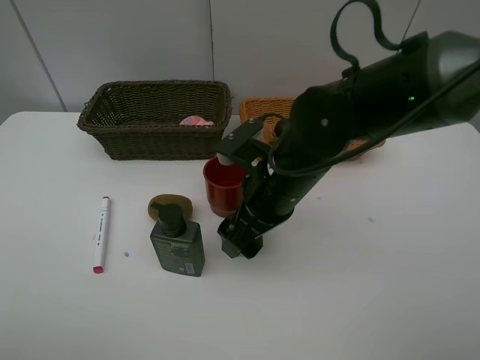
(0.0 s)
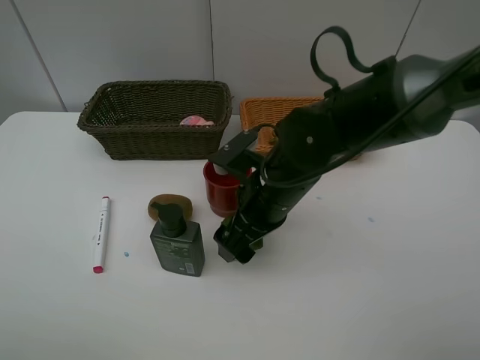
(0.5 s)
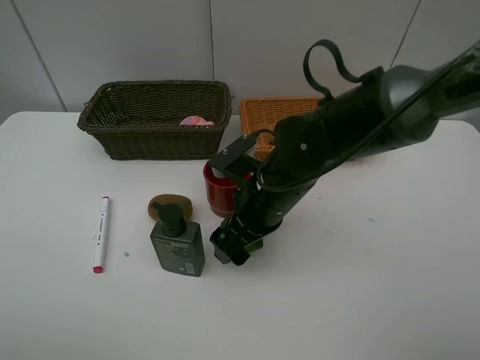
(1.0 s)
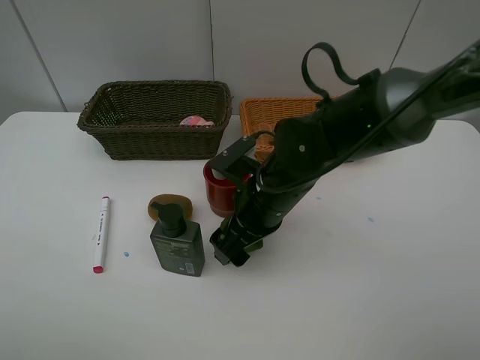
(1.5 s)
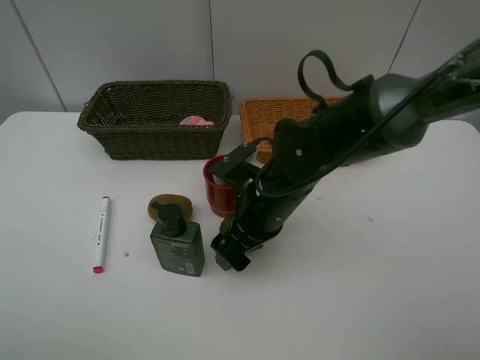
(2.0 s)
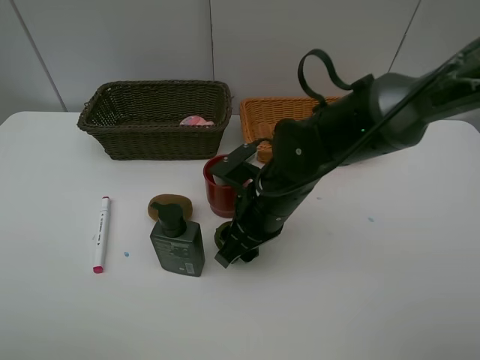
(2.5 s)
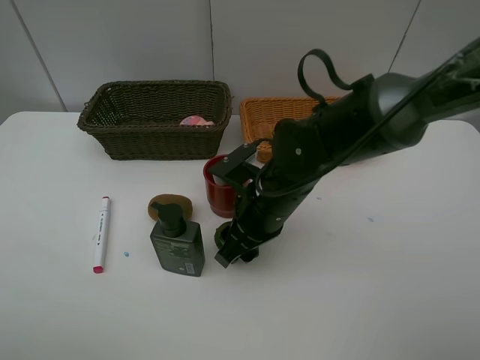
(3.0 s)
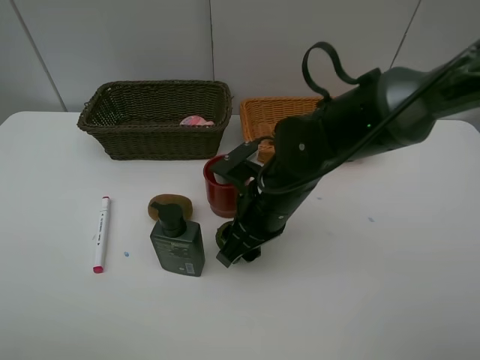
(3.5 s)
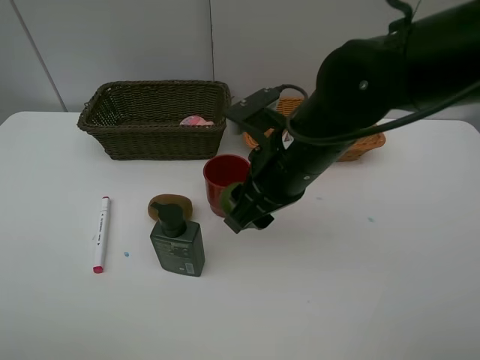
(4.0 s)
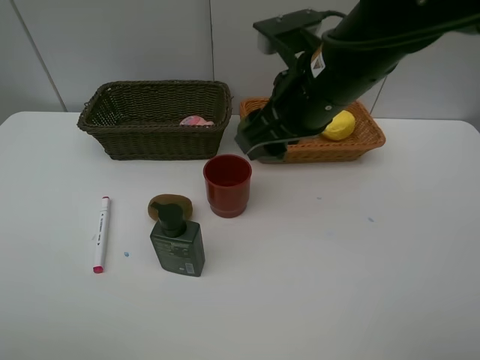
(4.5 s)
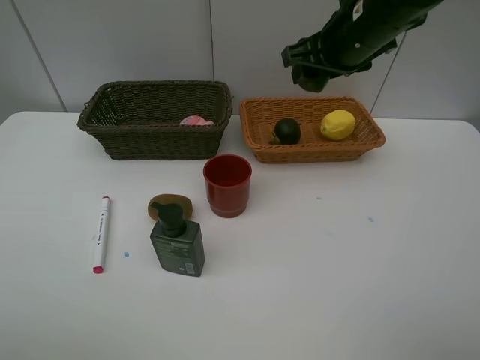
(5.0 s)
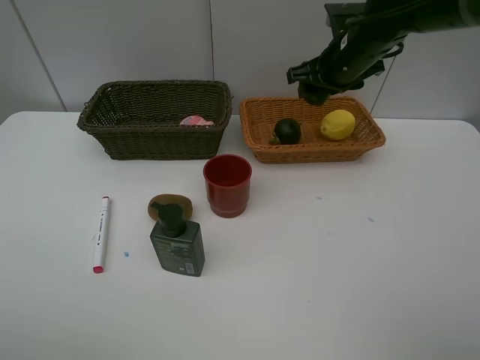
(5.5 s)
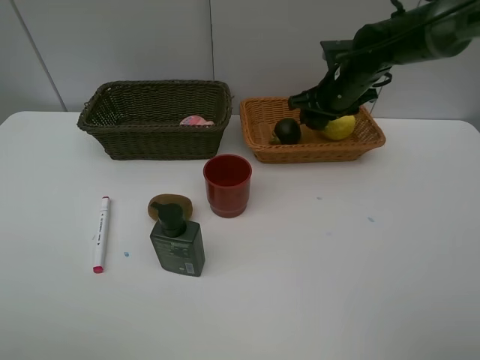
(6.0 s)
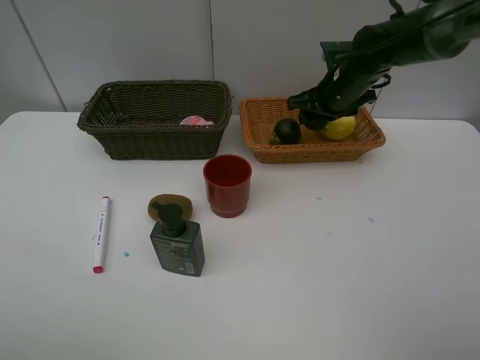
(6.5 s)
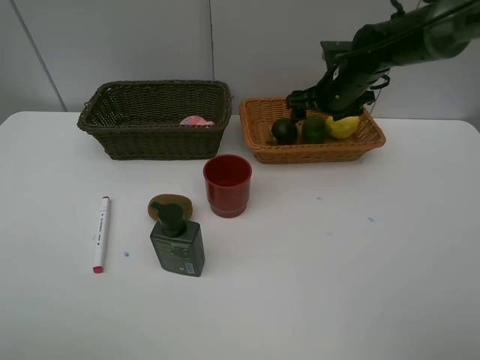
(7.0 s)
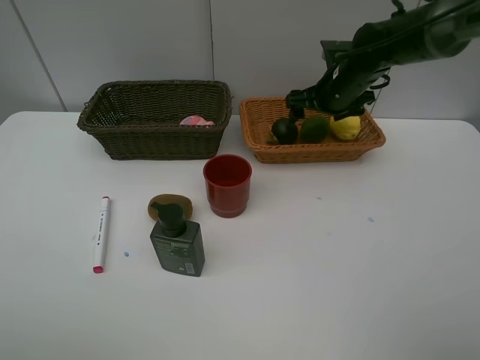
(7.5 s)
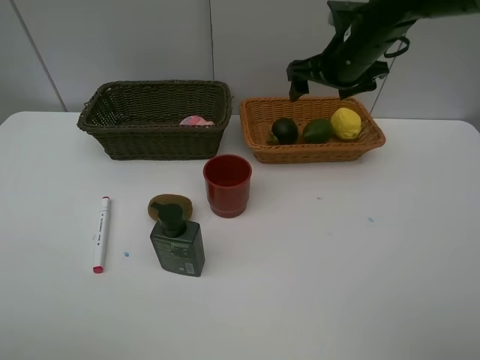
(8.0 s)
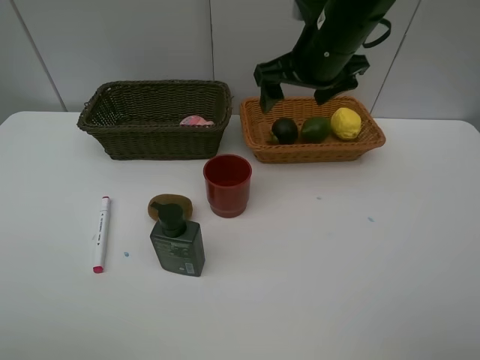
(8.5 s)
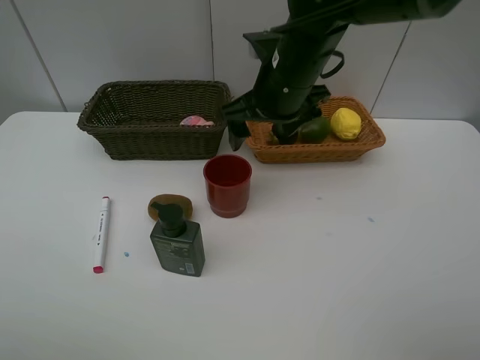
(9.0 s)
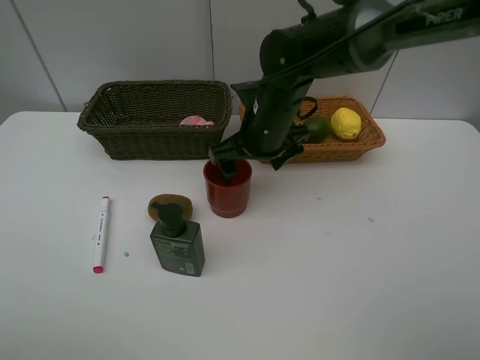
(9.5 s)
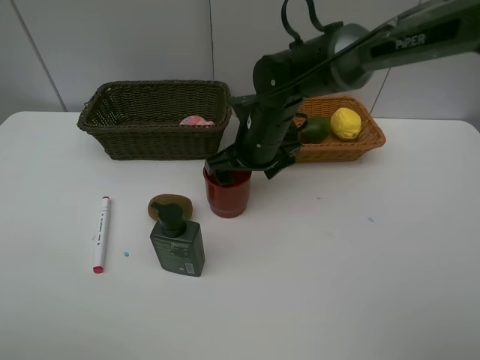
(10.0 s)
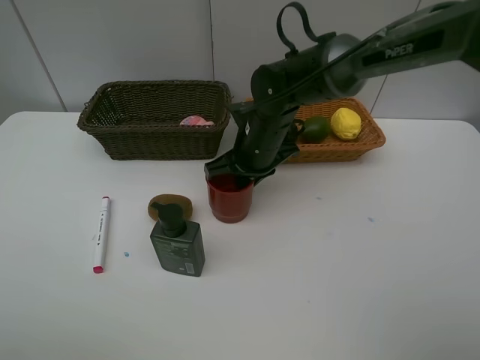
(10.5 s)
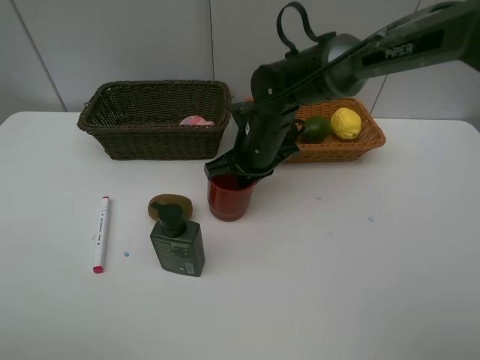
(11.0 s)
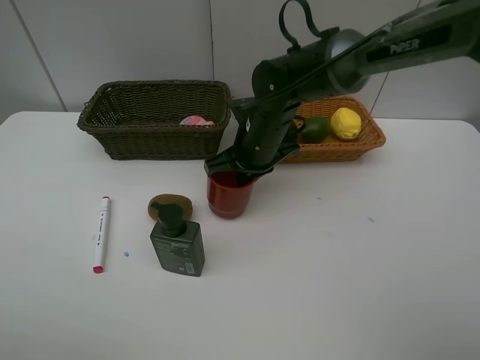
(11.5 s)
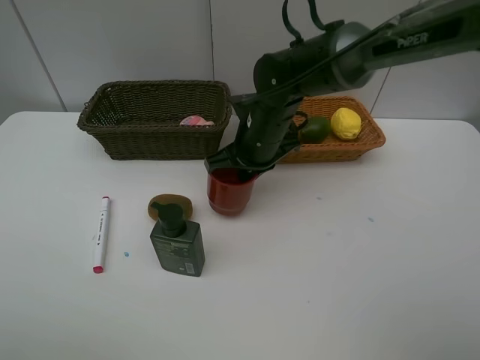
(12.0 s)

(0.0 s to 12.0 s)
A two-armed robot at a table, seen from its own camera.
Task of the whole recording: Place multiple objects separately in different baskets.
Step, 0.0 s - 3.5 s: Pick up the lime with right gripper.
Step, 4.0 s - 7.5 s: Place the lime in the light basket with right gripper.
0.0 s - 2.0 s: The grippers stay close to where they were, moving slightly.
2.0 s - 4.0 s: The right gripper shifts about 10 cm upward, and closes.
4.0 s - 6.0 s: The right gripper is displaced forward and to the right by some 25 cm.
6.0 s - 8.0 s: The right gripper moves upward, approximately 5 cm, and opens.
8.0 s - 10.0 s: The right gripper travels to the left, downward and backward by some 15 cm.
10.0 s - 12.0 s: The right gripper closes its fingers.

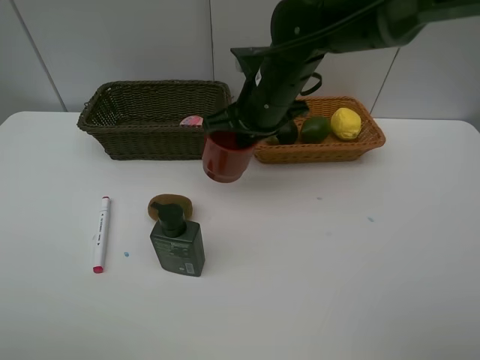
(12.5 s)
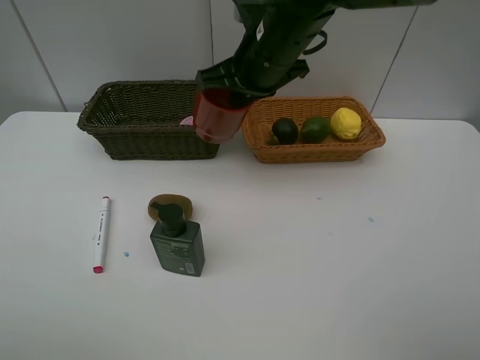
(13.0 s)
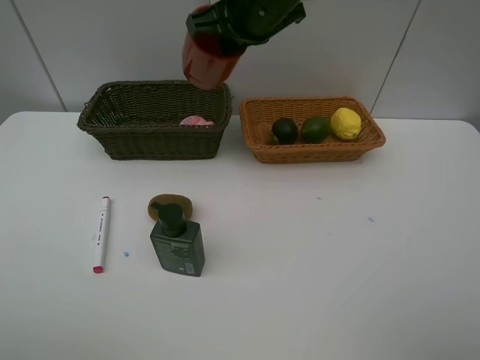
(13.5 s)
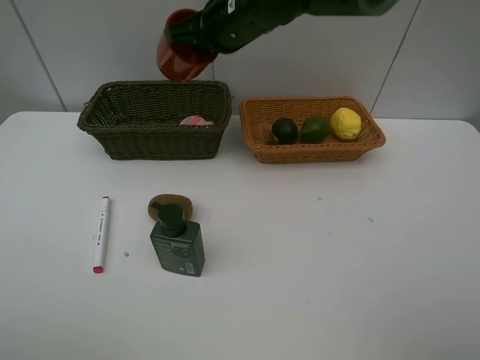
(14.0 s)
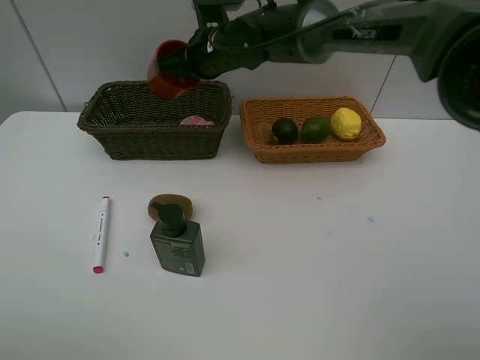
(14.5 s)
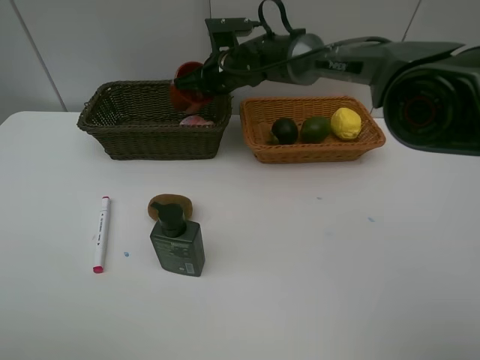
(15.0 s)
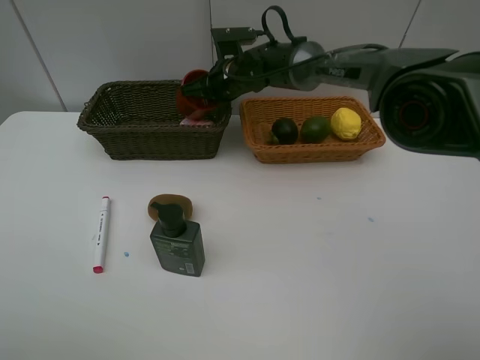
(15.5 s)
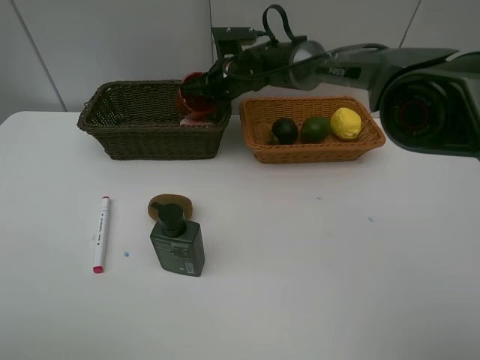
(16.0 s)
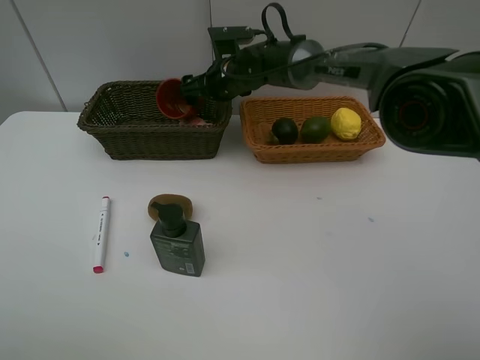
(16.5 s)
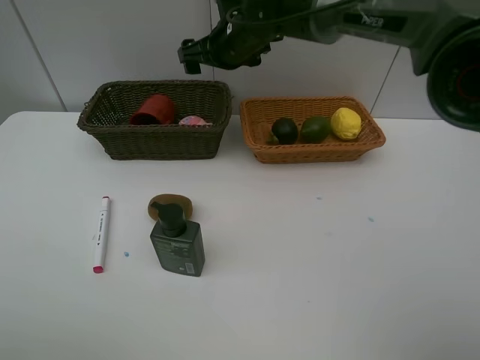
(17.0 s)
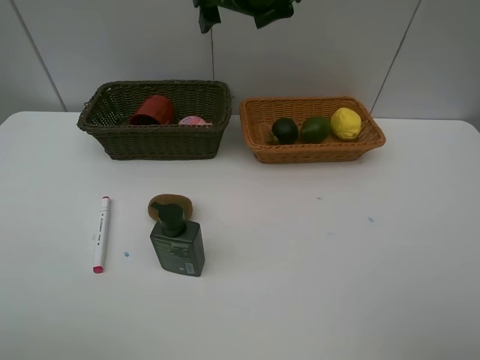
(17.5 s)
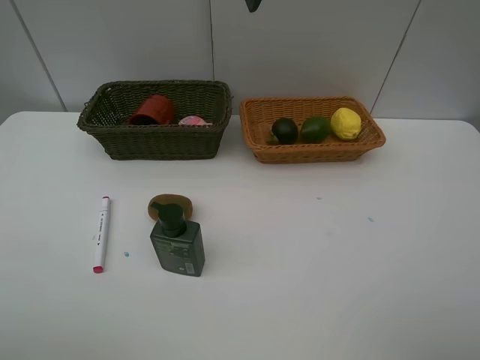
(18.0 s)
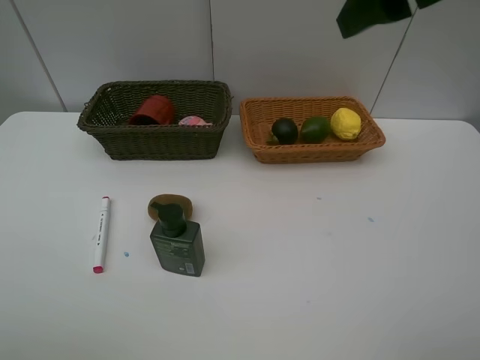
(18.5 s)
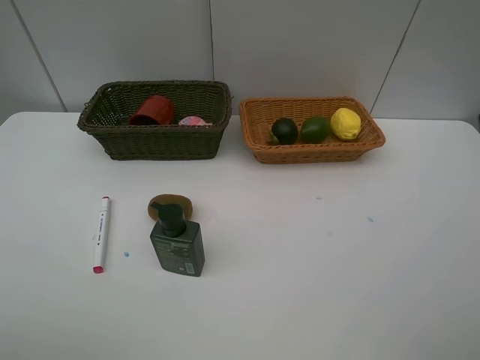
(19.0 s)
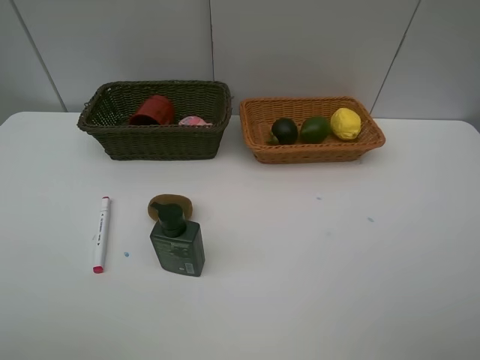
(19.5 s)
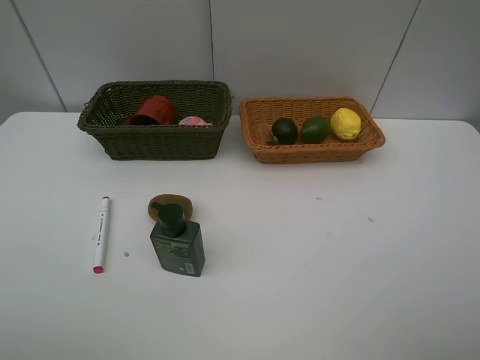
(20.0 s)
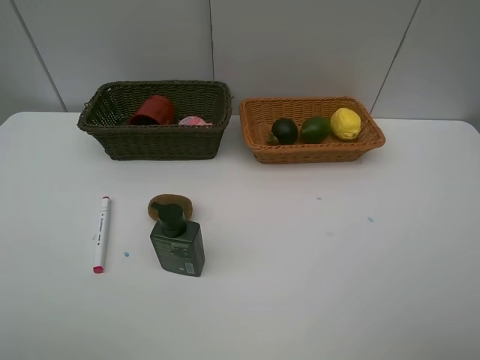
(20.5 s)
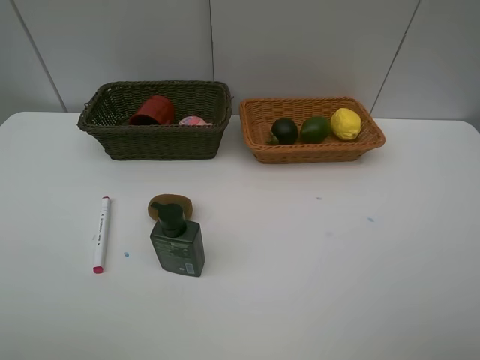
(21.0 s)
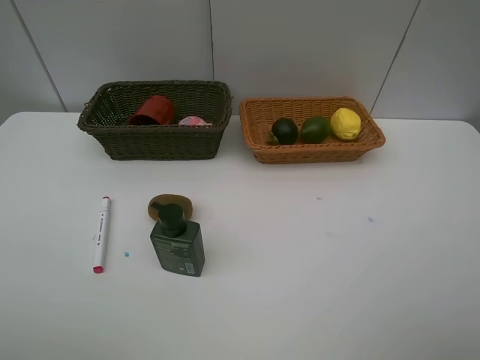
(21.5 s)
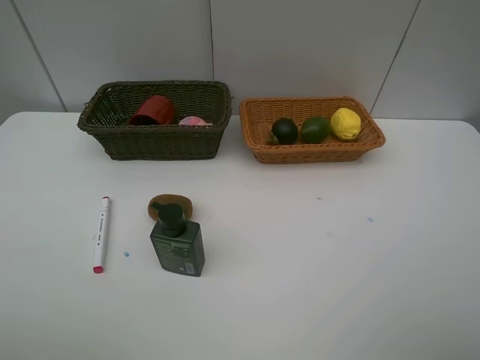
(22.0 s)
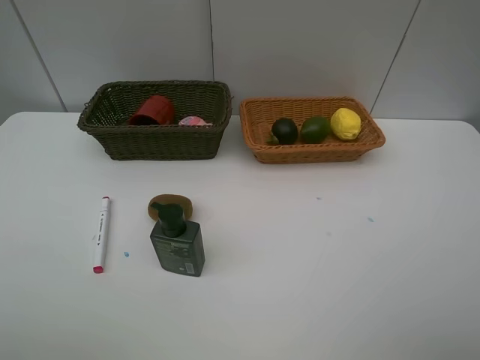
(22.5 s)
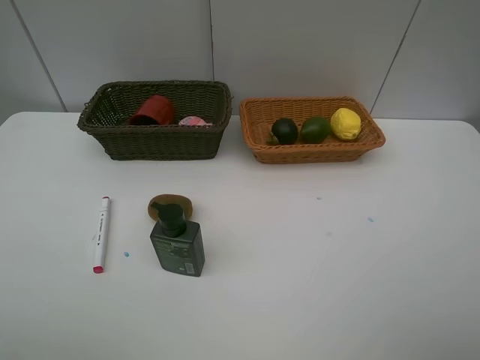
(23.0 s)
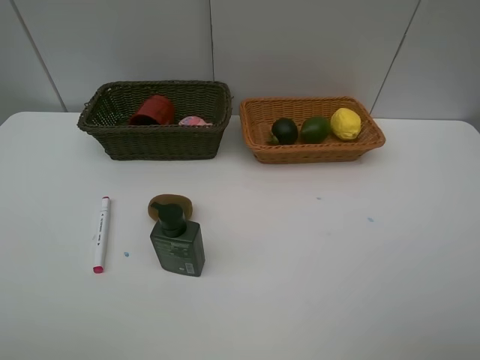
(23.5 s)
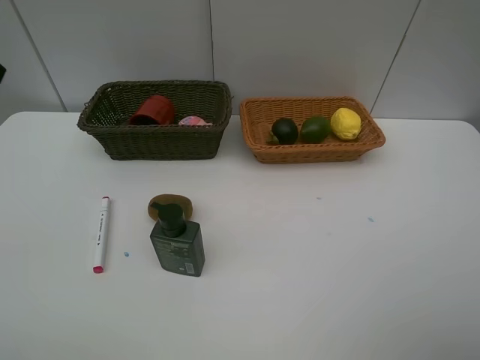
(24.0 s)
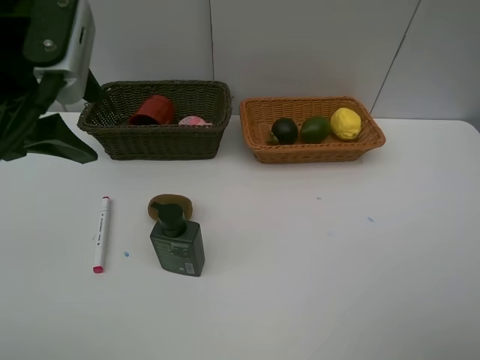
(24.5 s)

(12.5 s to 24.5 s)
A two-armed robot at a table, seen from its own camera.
Task of the whole recording: Place multiple objects separately in different baskets.
Step, 12.5 s - 16.5 s: Place the dark brown cup in the dark basket with right gripper.
12.5 s - 14.5 s: The right gripper goes some 10 cm forward and to the left, and reaches roughly 10 cm upward, then returns.
14.5 s - 16.5 s: The right gripper travels downward by roughly 5 cm, and opens its fingers.
16.5 s - 18.5 s: The right gripper shifts approximately 40 cm backward, upward and to the right.
18.5 s - 20.5 s: The right gripper heads backward, to the right and downward, covering roughly 30 cm.
22.5 s - 24.5 s: The left gripper is displaced forward and to the right by some 25 cm.

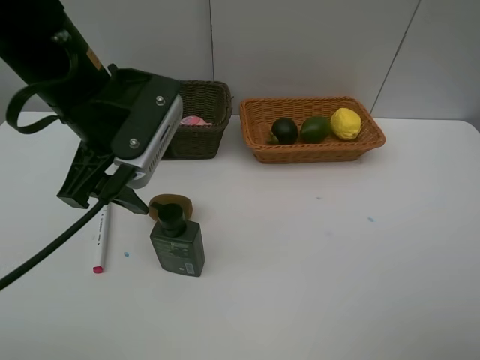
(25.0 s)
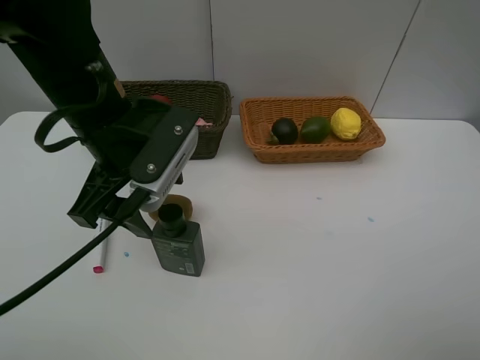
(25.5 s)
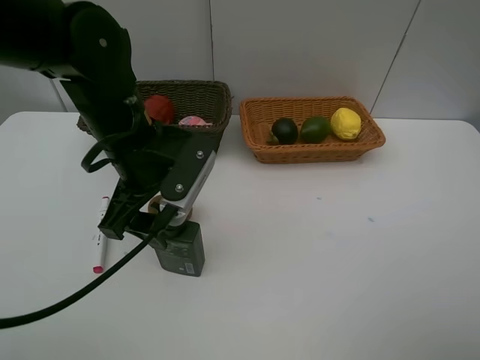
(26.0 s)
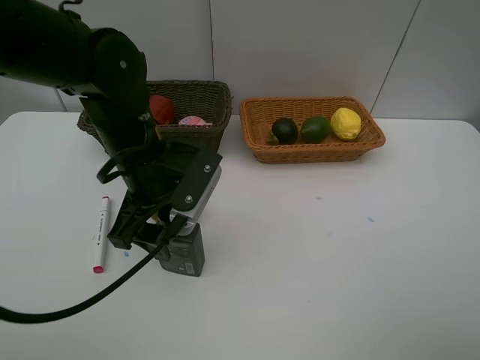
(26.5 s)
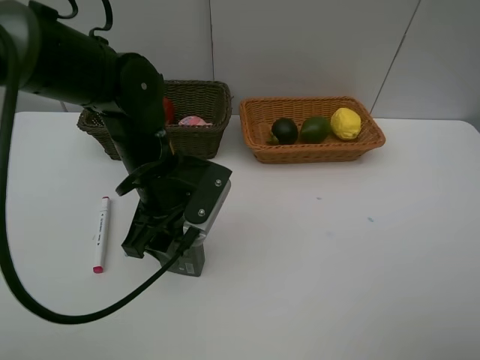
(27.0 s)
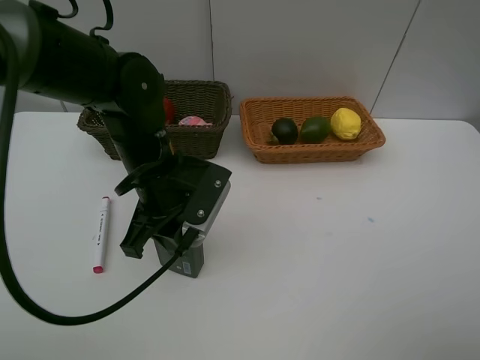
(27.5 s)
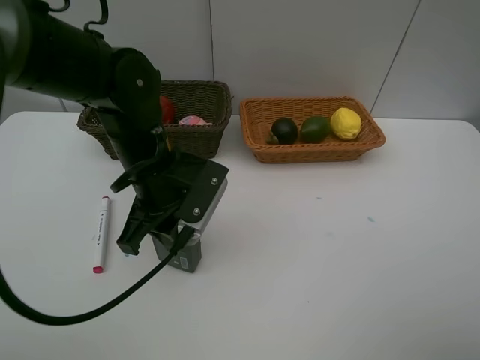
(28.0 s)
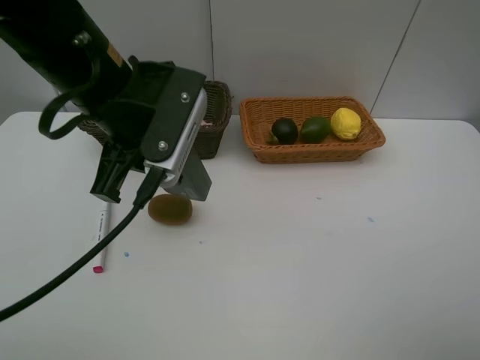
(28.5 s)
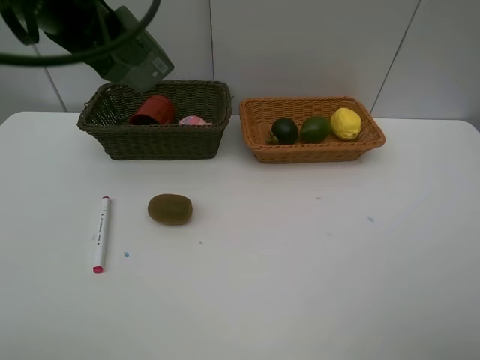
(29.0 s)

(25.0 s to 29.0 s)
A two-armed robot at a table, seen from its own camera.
Task of the whole recording: Place multiple objects separately in different baskets.
Step, 25.0 s - 28.0 s: Pick up the hard facial cleanser with left gripper.
25.0 s - 27.0 s: The left gripper moves downward, some 10 cm.
27.0 s - 29.0 s: The left gripper is displaced upward and to the left by roughly 20 cm, and closes.
